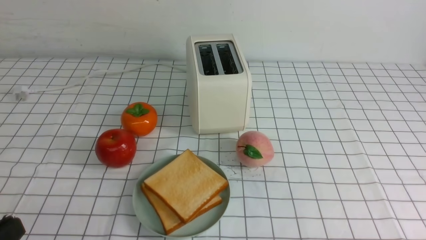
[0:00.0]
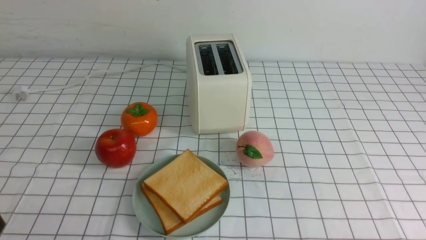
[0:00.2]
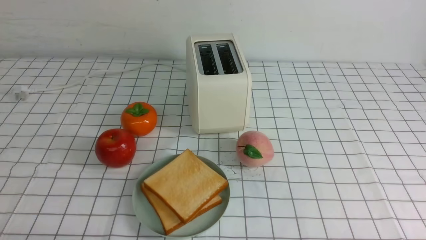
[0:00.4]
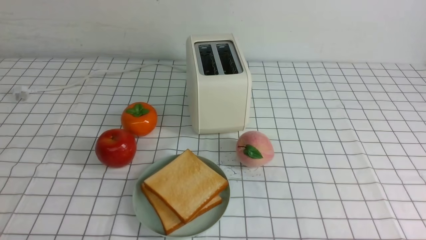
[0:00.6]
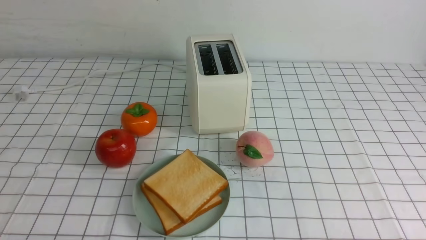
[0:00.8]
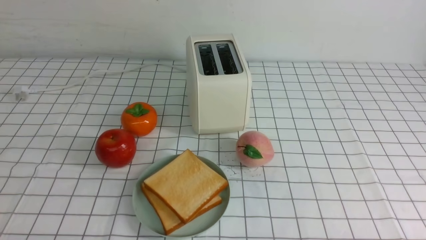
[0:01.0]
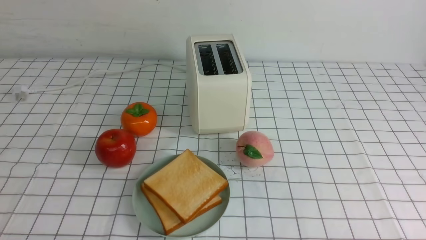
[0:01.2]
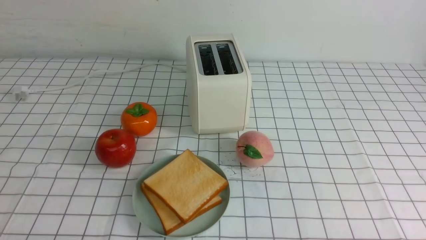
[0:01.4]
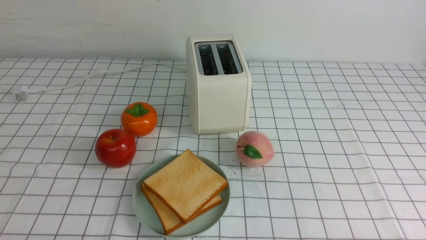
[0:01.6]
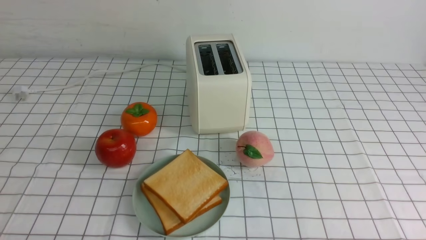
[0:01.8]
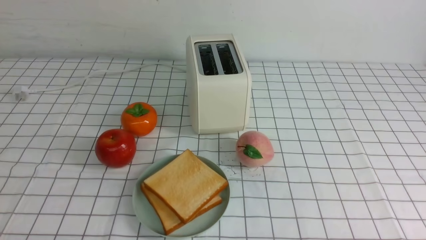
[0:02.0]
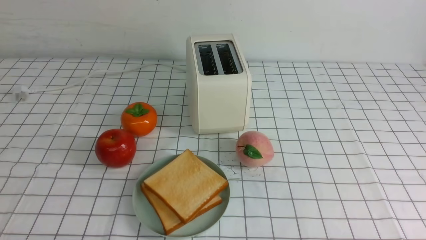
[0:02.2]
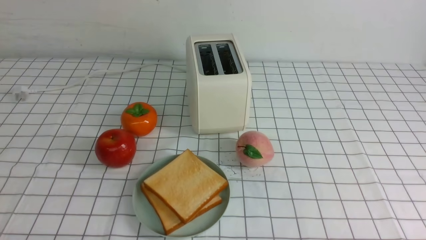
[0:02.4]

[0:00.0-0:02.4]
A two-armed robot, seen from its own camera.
Task of the whole recording: take toasted bread from bread machine on white checkered table place on plate.
0:01.2 to 0:02.4: Neither gripper changes place.

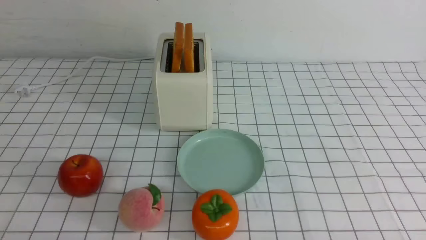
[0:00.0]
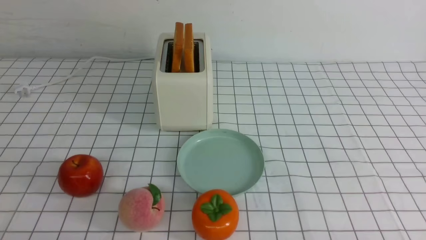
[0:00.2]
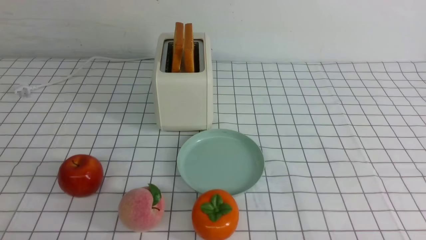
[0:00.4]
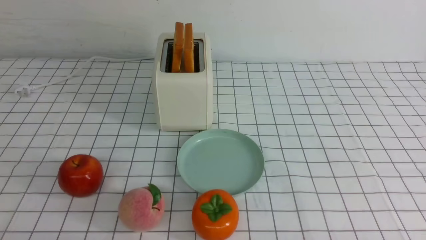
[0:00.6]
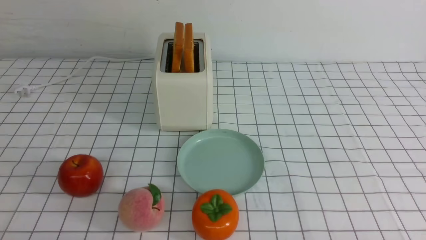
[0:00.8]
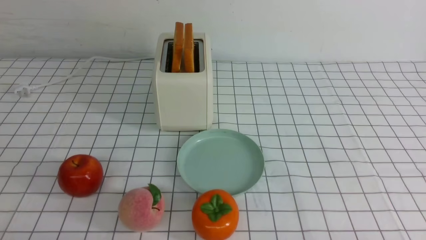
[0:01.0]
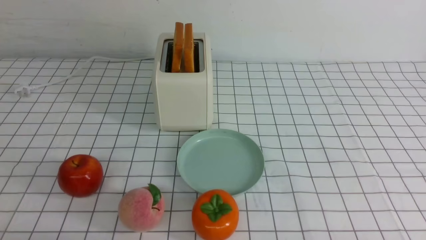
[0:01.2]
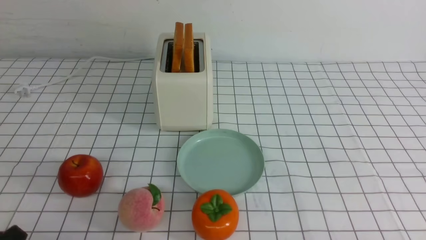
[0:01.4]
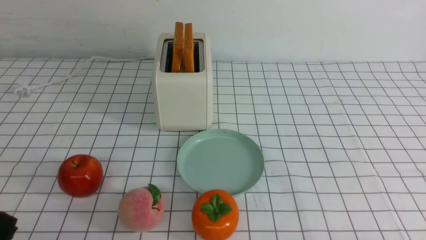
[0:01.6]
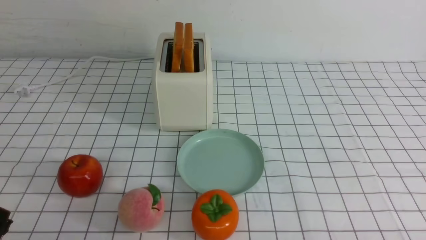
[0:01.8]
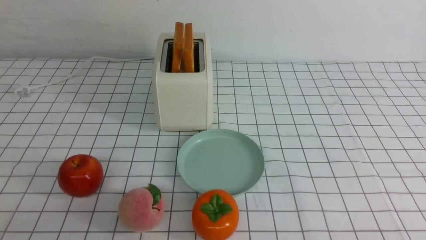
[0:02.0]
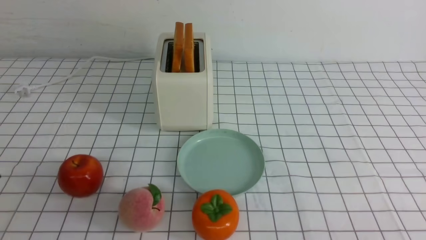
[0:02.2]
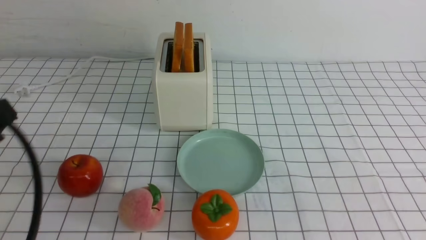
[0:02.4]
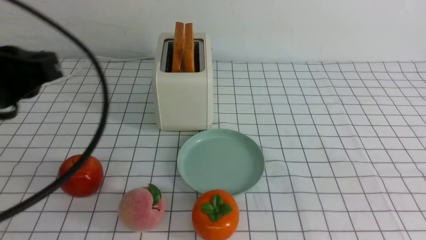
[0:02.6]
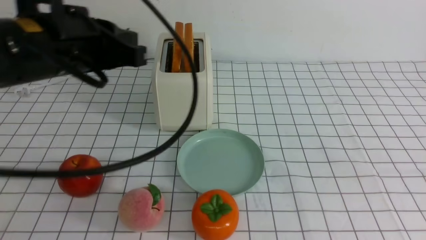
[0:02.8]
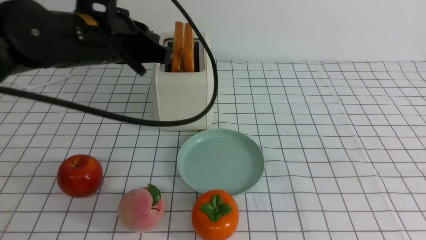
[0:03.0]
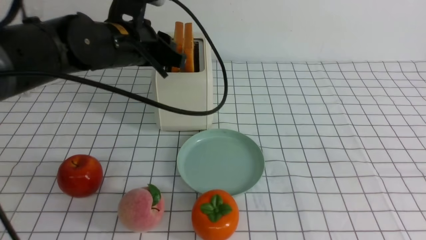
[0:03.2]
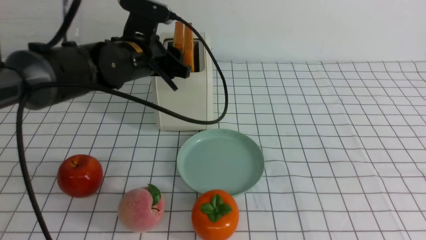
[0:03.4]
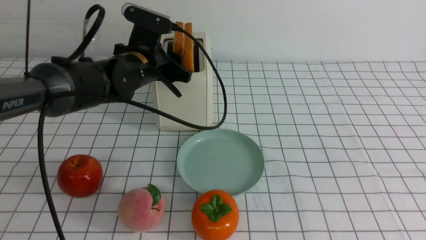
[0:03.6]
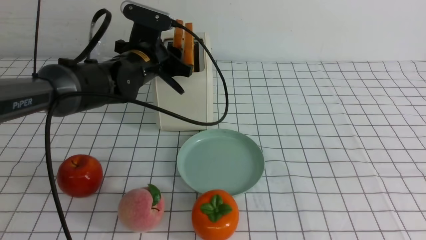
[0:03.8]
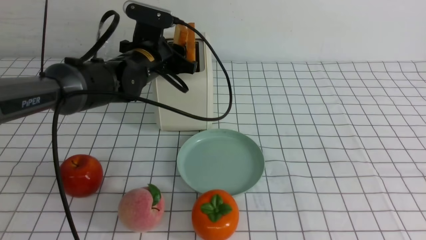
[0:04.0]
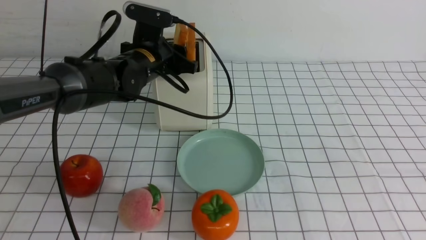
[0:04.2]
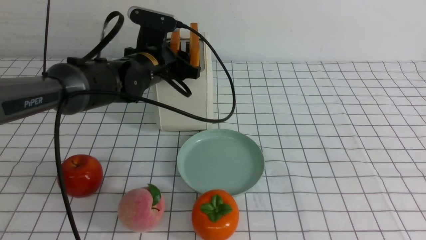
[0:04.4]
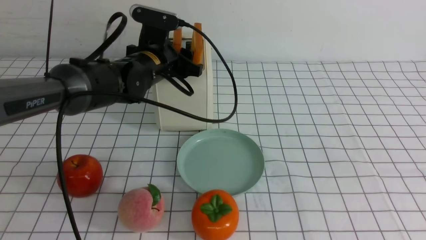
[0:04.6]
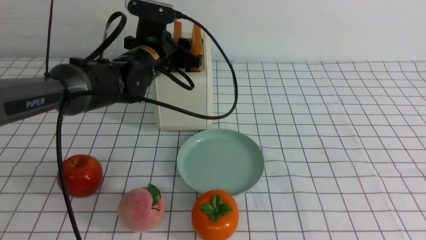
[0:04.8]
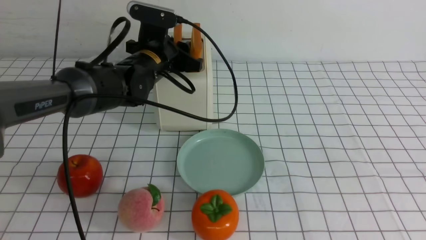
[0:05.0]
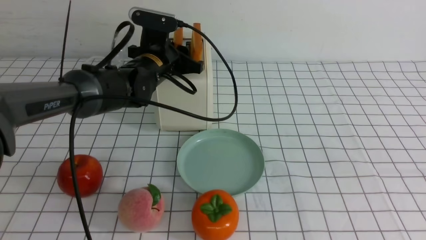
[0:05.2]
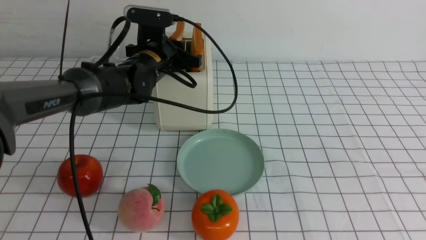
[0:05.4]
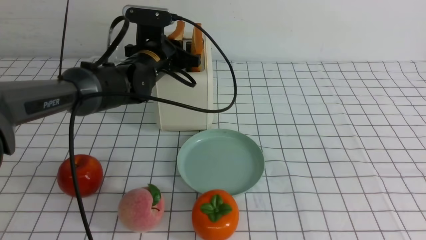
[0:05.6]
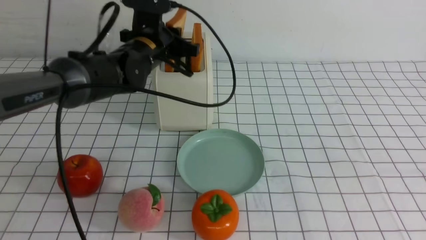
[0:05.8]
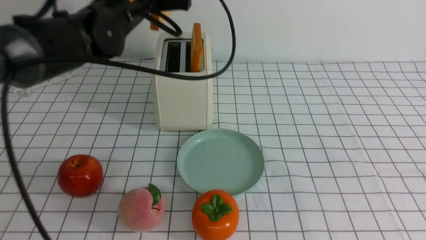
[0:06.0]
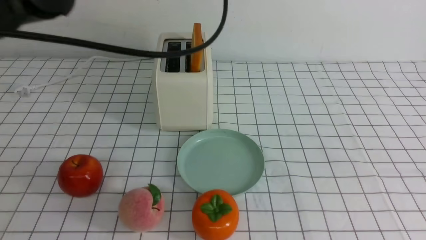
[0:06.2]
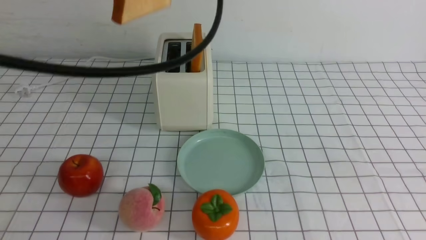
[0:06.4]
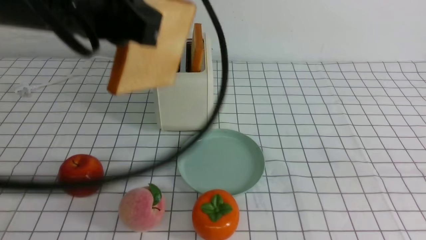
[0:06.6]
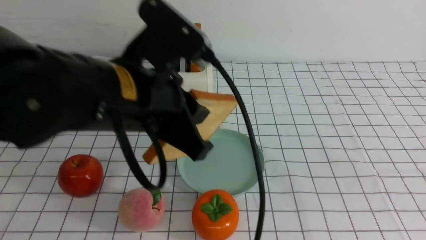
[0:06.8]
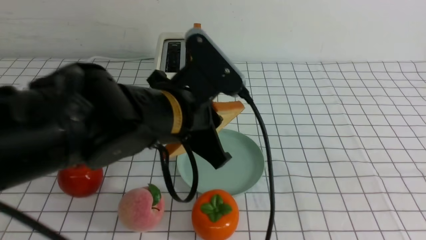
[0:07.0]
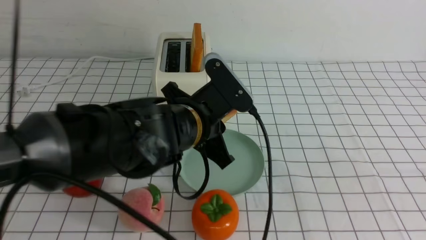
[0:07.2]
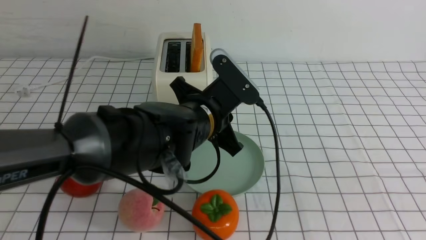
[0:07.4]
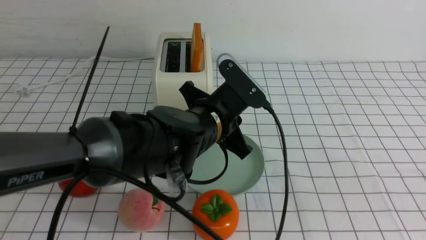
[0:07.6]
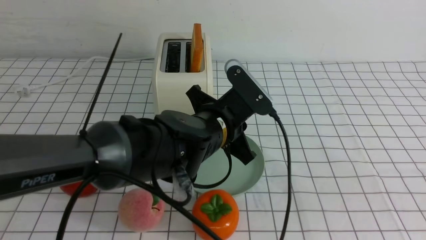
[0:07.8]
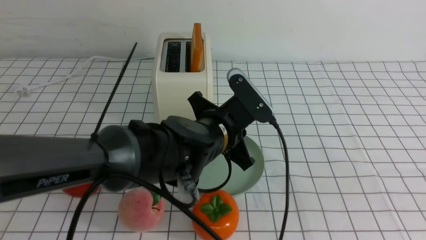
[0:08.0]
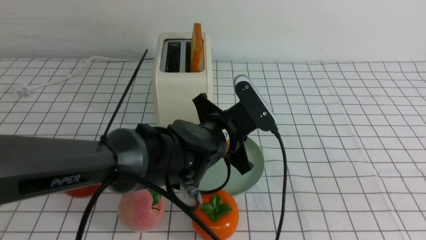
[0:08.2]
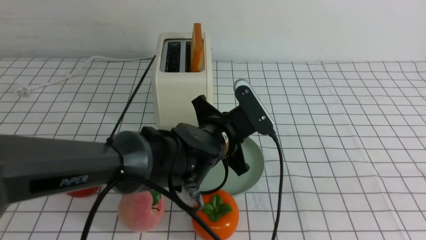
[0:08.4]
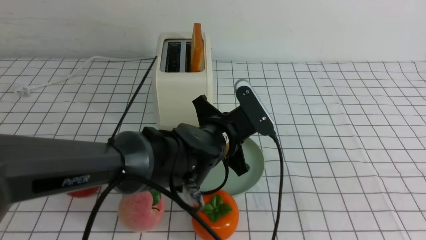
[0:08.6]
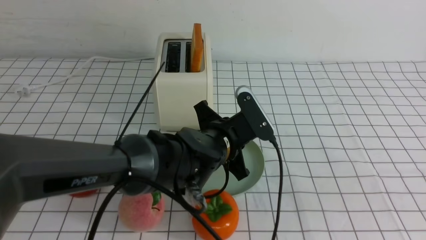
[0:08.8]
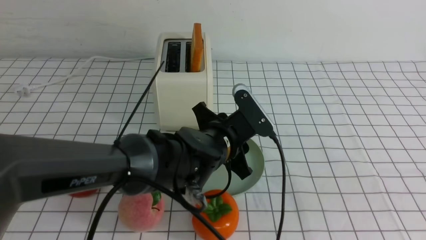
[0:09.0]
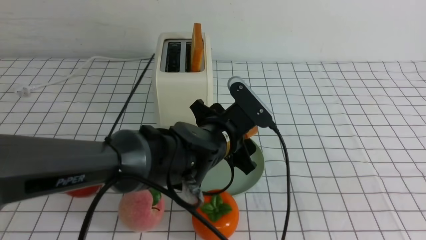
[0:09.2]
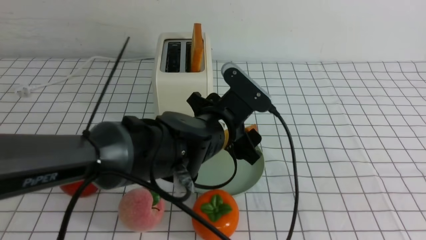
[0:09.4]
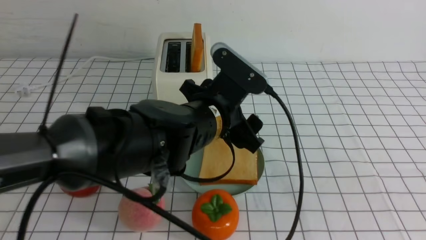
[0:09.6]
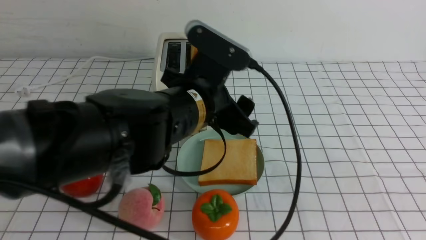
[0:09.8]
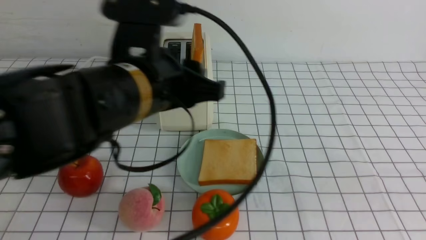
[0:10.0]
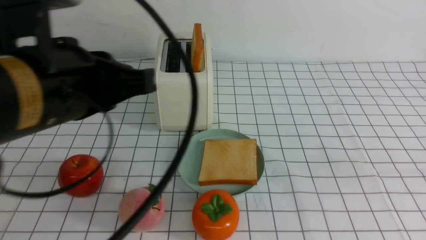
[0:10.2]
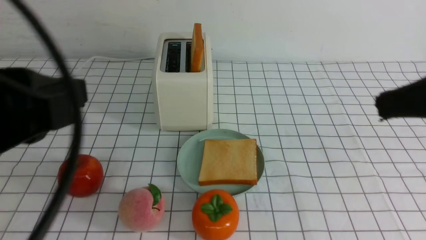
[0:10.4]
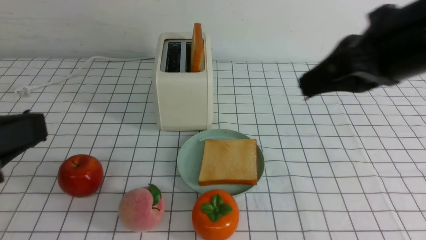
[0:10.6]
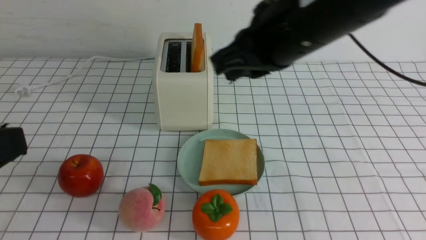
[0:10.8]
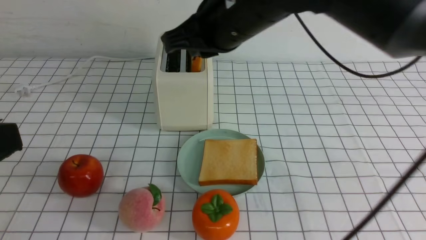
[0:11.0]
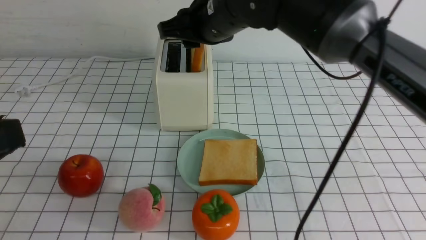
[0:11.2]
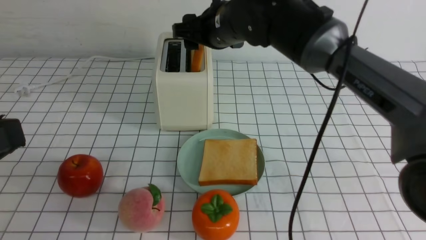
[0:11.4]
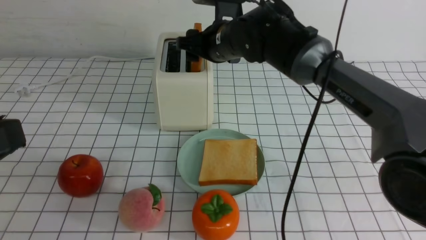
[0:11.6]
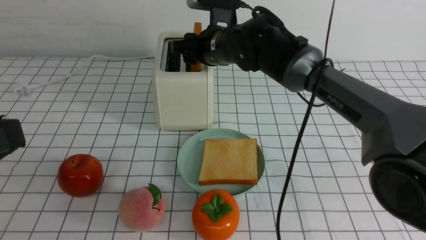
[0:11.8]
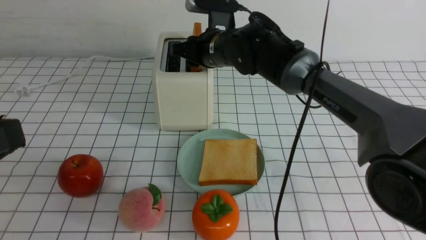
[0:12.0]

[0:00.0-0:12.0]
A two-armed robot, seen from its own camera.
Task of the whole recording: take toasted bread from bread machine on white checkered table place on plate.
Step, 0:00.0 to 0:05.8: use the left arm to take out a slice of bread.
Step, 0:06.0 to 0:09.4: use the left arm to put a slice of bread into the empty plate.
0:01.6 to 0:03.0: The right gripper is displaced upward by approximately 25 cm, and closes its fingers. Meanwhile the left gripper is displaced forward, upward and to the right by some 35 cm.
0:03.0 to 0:04.4: The left gripper moves forward and downward, approximately 15 cm, and opens.
0:04.4 to 0:06.0: The left gripper is displaced upward by some 10 cm, and closes its fingers.
0:06.0 to 0:07.6: The left gripper moves downward, to the right and backward, roughly 20 cm. The right gripper changes place by about 5 cm.
0:07.6 to 0:09.0: The left gripper opens.
0:09.0 to 0:10.4: The left gripper moves upward, backward and to the left, approximately 35 cm, and closes, while the right gripper travels forward by some 15 cm.
0:10.4 to 0:12.0: The left gripper travels backward by about 5 cm, while the right gripper is displaced forward, to the left and downward by some 40 cm, and opens its fingers.

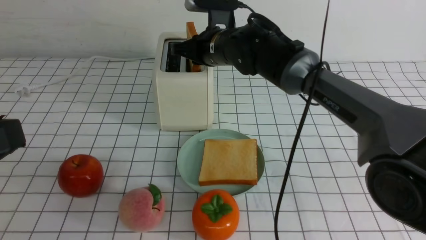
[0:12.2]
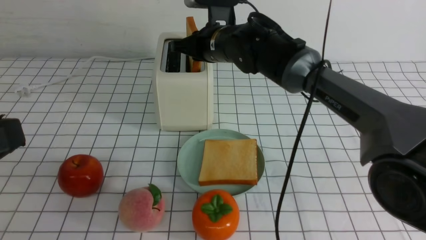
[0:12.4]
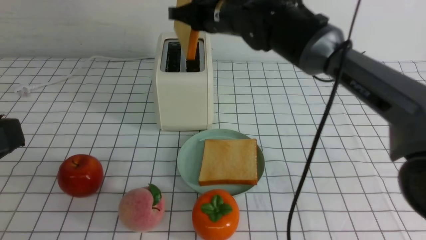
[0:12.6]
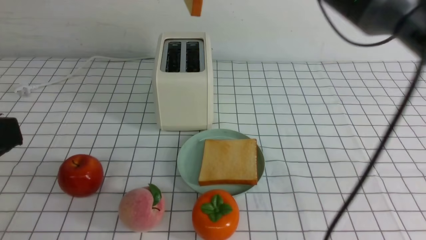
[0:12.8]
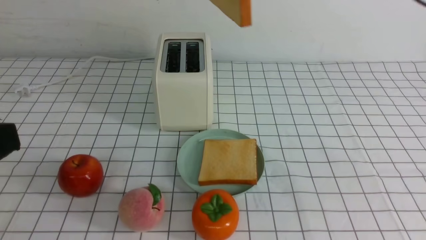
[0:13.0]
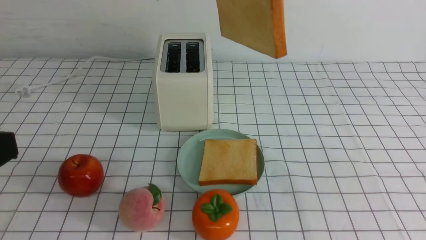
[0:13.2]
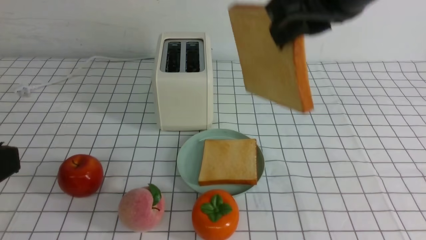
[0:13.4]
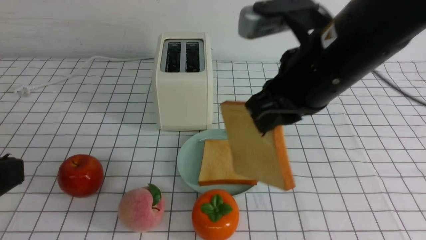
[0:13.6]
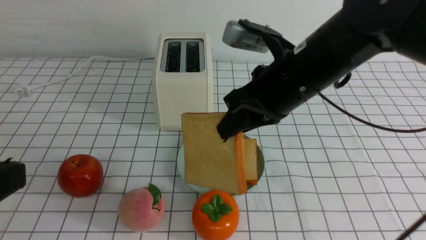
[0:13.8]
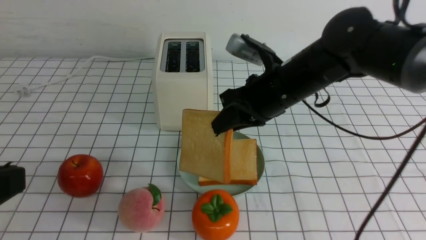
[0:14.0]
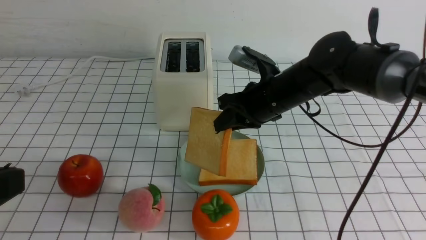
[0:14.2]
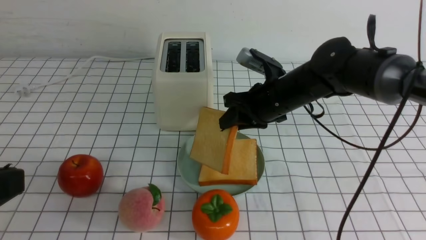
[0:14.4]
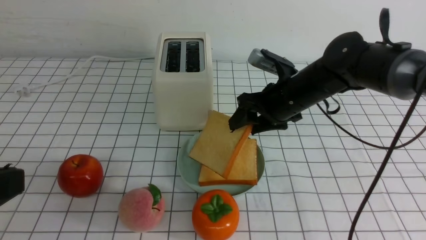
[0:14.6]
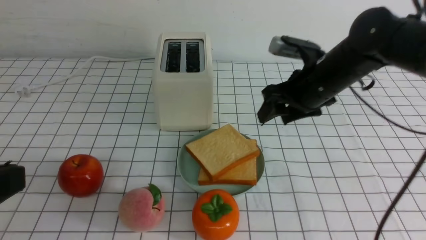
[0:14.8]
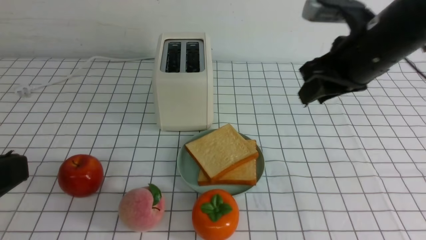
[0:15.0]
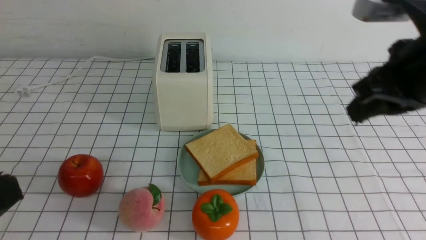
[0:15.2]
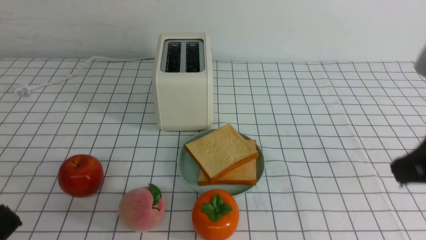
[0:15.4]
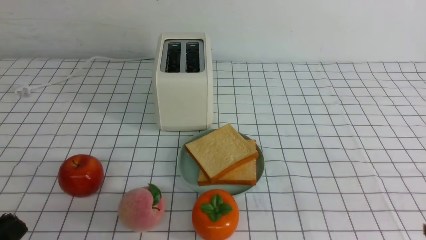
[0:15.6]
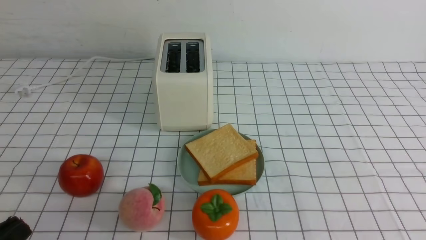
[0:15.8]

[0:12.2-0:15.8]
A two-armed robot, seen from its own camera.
Task of the whole recording: take toasted bread from bread machine on white checkered table place on plate.
Step, 0:12.6 to 0:14.8: use the right arm to put a slice of bread into the plate.
0:12.2 to 0:14.0: The right gripper shifts roughly 15 cm backward and to the right.
0:14.0 to 0:15.8: The left gripper shifts some 10 cm downward; the right gripper travels backward and to the right by some 35 cm, and opens, then closes again.
